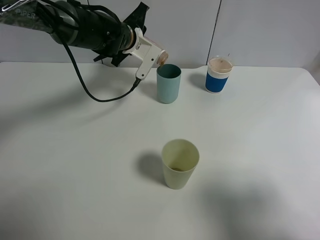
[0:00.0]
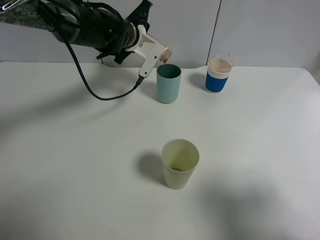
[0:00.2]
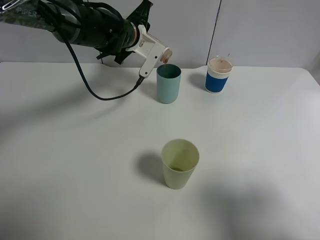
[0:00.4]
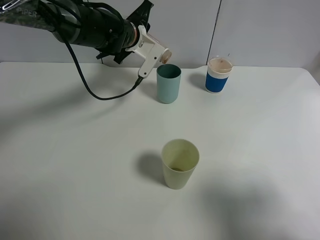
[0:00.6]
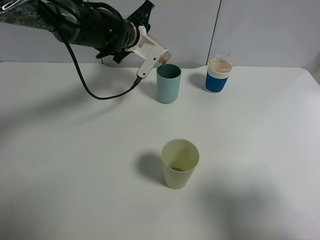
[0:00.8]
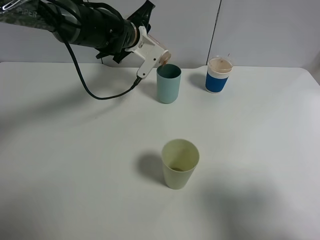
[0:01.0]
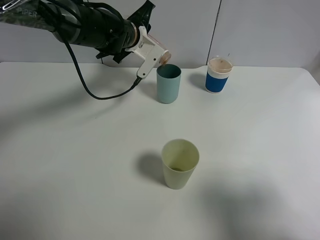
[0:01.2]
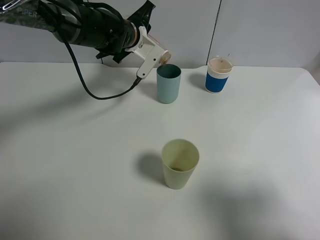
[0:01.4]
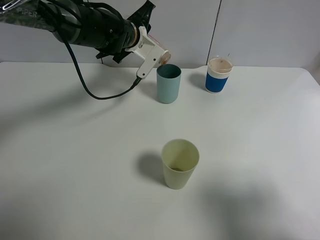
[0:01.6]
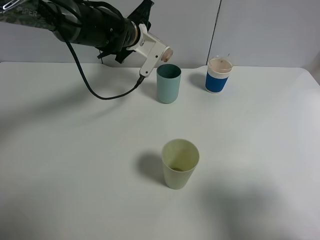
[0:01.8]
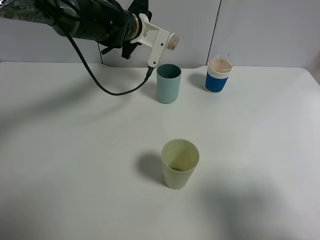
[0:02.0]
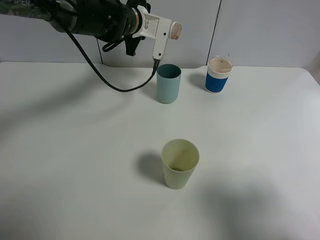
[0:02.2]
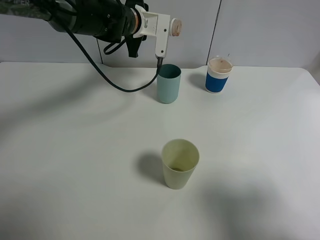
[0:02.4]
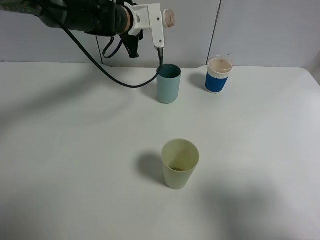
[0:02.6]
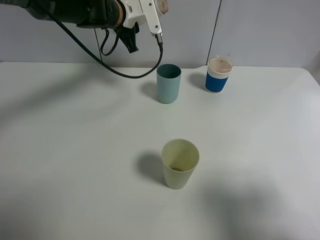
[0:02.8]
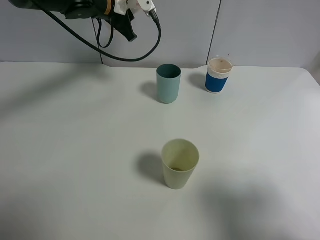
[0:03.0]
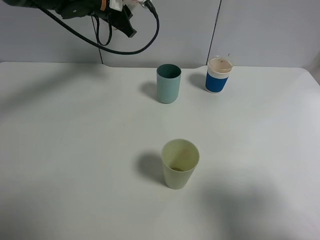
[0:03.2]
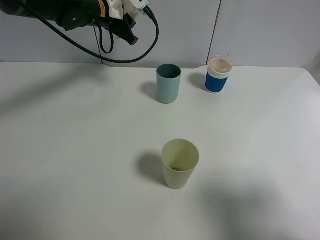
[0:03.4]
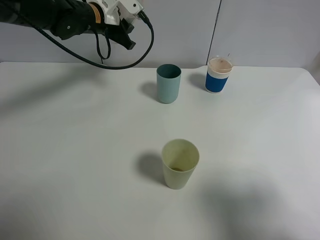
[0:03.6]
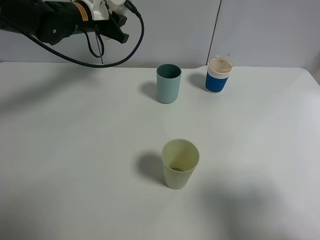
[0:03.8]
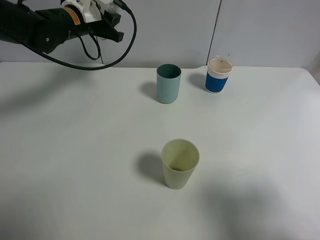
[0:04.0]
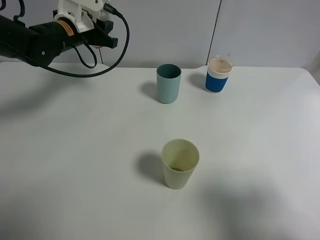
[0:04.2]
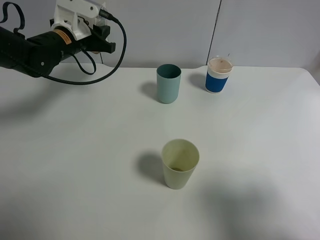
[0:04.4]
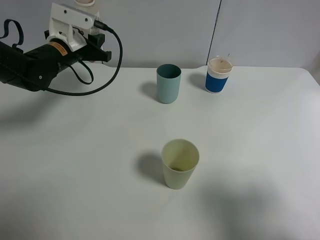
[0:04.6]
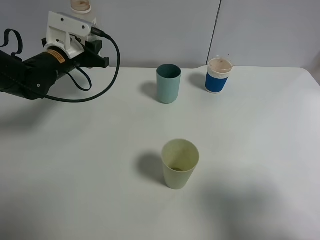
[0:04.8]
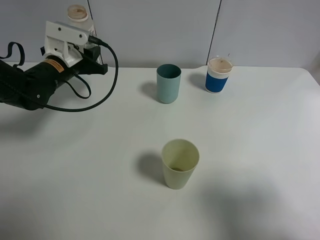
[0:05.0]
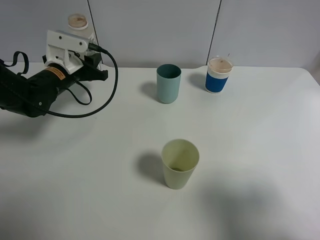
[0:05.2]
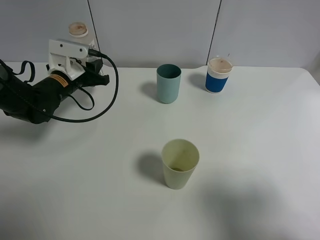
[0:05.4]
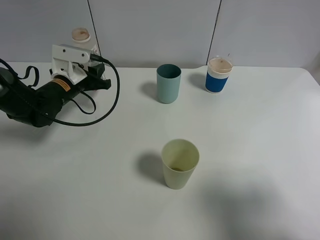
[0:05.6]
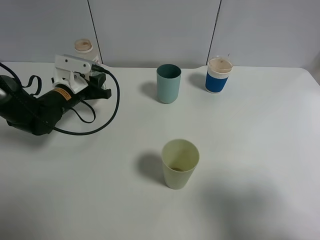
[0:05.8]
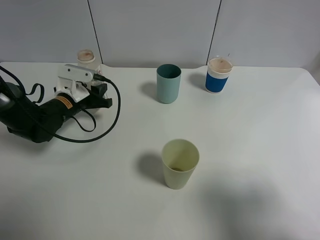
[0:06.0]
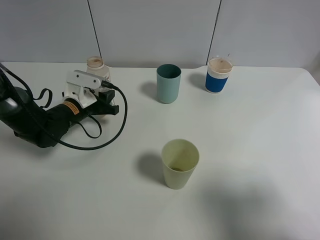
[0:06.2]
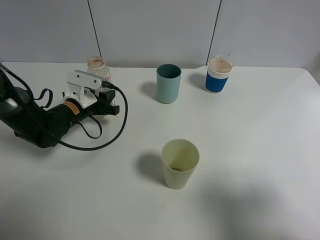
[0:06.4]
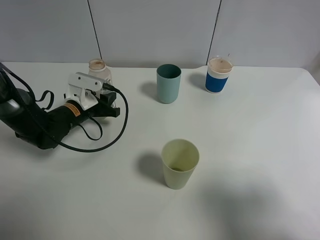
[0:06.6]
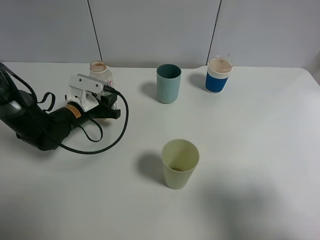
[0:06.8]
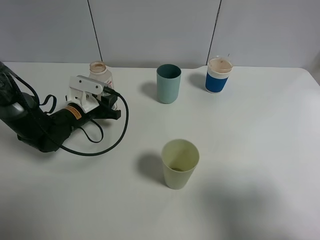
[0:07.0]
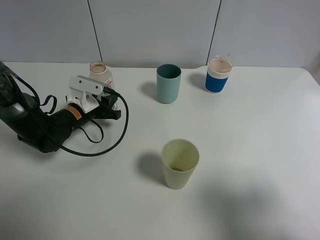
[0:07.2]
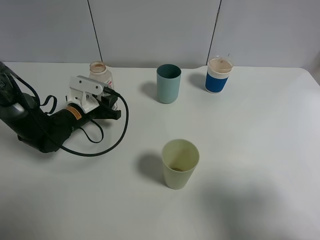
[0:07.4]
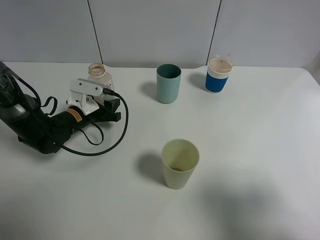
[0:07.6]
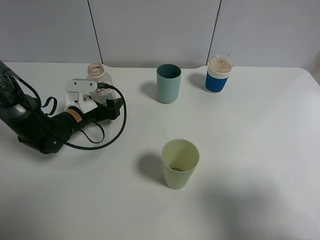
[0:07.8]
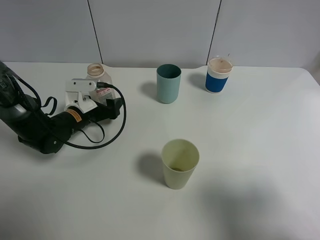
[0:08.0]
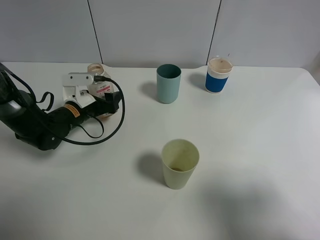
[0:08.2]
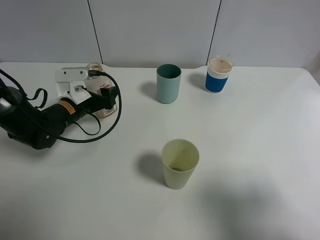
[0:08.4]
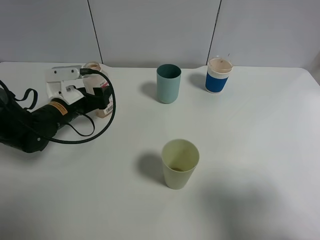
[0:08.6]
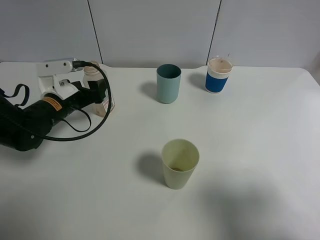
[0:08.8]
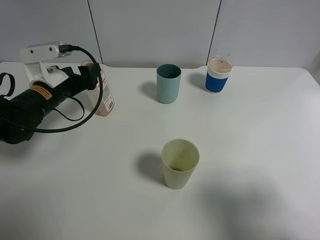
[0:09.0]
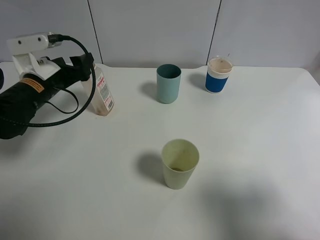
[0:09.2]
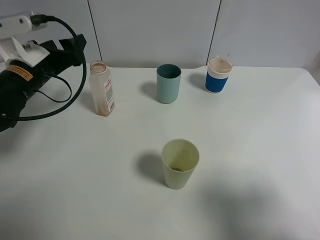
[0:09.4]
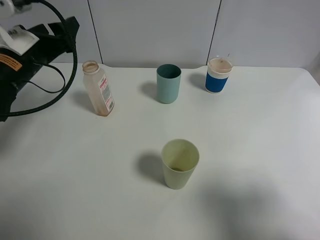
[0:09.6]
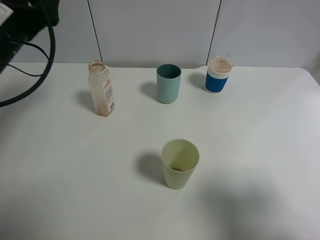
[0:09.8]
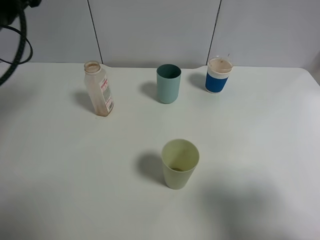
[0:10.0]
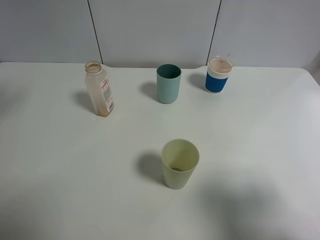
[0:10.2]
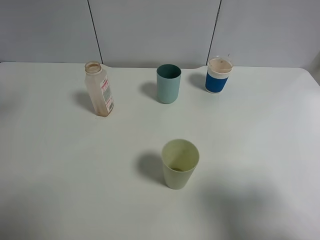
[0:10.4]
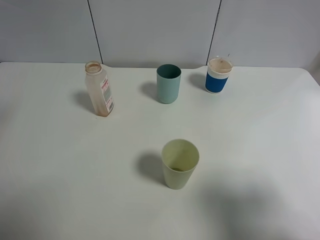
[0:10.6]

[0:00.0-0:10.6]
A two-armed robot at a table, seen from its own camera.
Task of the whole recording: use a gripper to hold the bottle of the drink and pour it into a random cup.
Step, 0:01.6 to 0:09.6: Place the cranberry juice bottle on the table with the left gripper.
0:00.0 to 0:01.6: Both grippers stay put.
0:01.6 to 0:03.0: The left gripper travels upward and to the left by approximately 10 cm.
0:03.0 to 0:04.6: The left gripper travels to the left, backward and downward by roughly 15 cm.
0:04.6 to 0:06.0: The left gripper shifts some 10 cm downward.
0:06.0 to 0:07.6: The left gripper opens.
0:07.6 to 0:09.0: The left gripper is displaced upward by some 10 cm, and opens up.
0:09.0 to 0:10.6: The left gripper heads upward and backward, covering about 25 cm.
